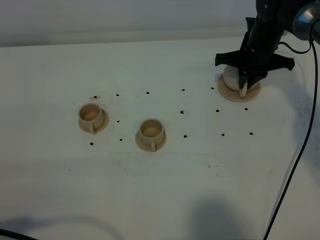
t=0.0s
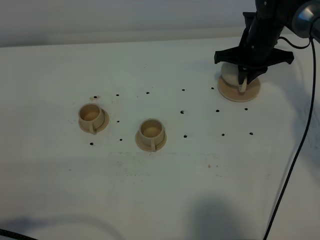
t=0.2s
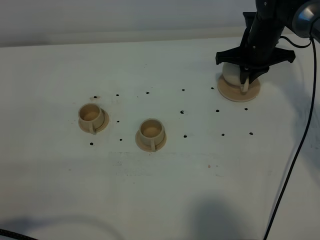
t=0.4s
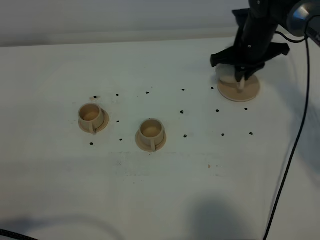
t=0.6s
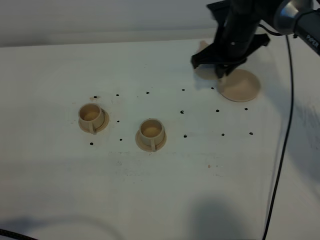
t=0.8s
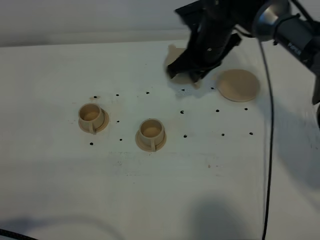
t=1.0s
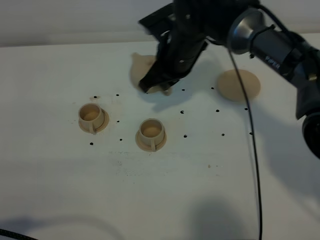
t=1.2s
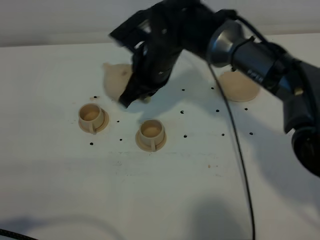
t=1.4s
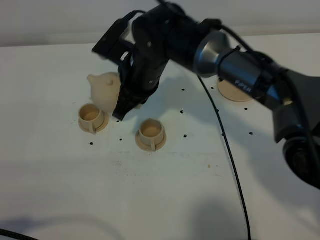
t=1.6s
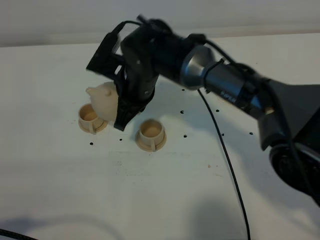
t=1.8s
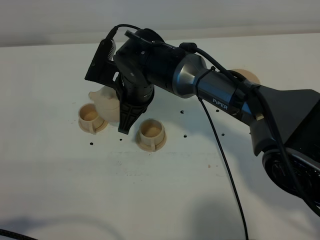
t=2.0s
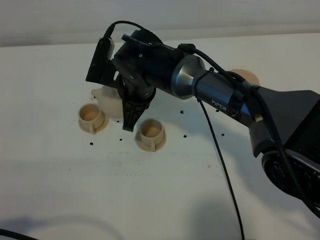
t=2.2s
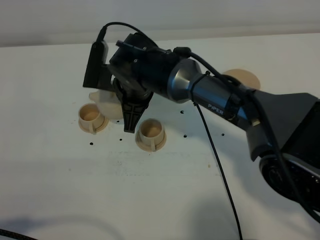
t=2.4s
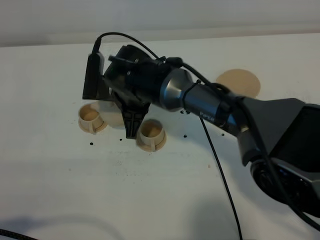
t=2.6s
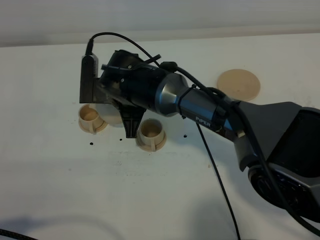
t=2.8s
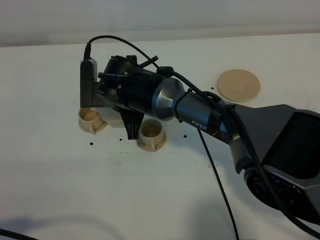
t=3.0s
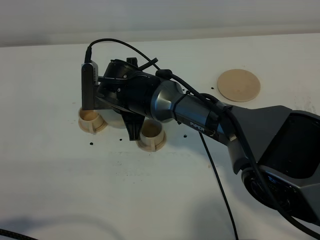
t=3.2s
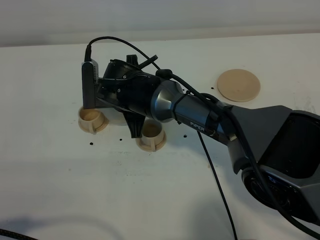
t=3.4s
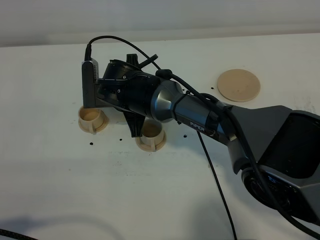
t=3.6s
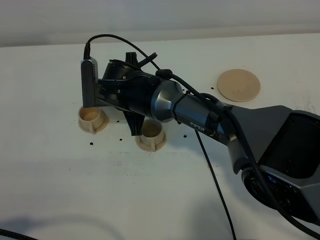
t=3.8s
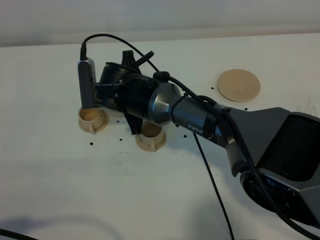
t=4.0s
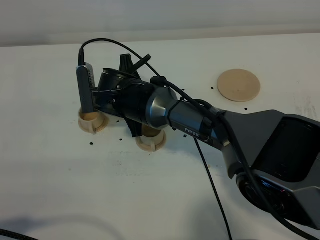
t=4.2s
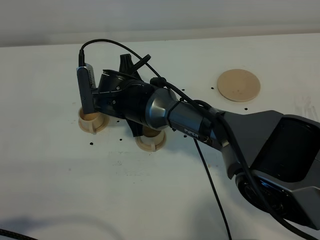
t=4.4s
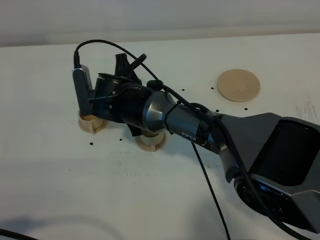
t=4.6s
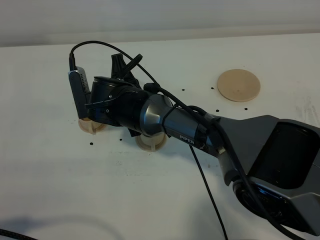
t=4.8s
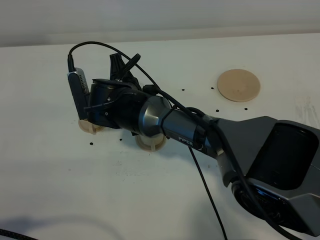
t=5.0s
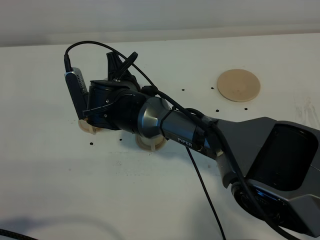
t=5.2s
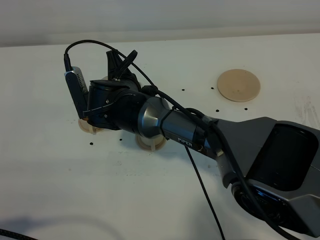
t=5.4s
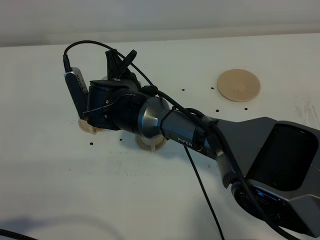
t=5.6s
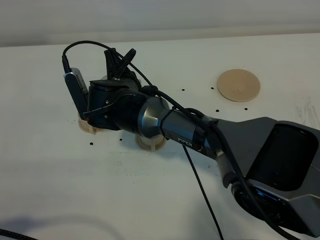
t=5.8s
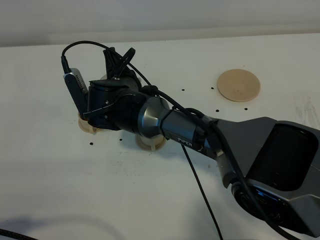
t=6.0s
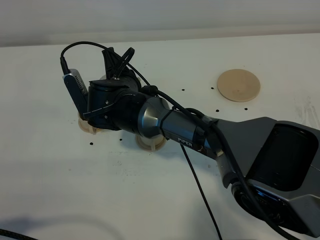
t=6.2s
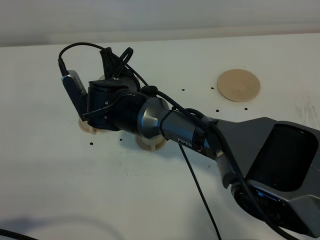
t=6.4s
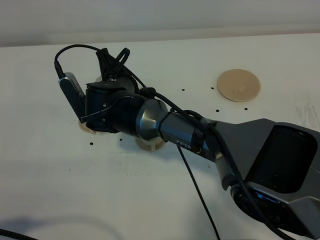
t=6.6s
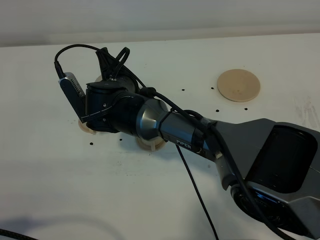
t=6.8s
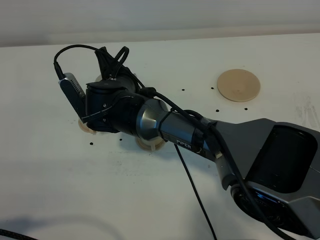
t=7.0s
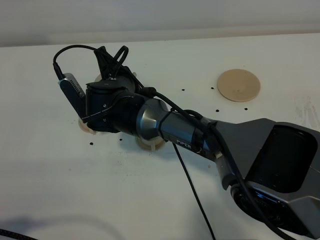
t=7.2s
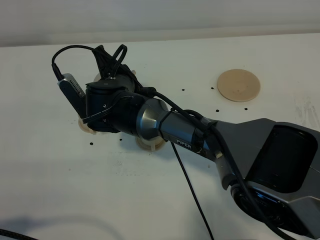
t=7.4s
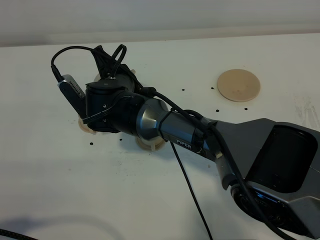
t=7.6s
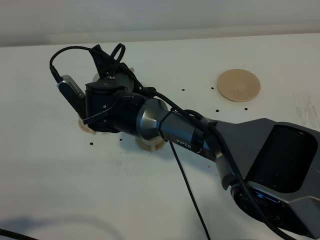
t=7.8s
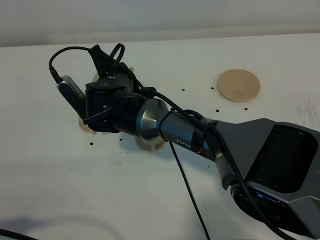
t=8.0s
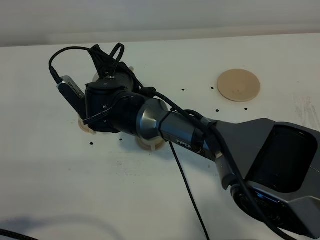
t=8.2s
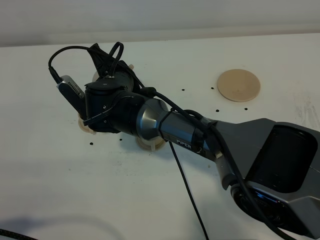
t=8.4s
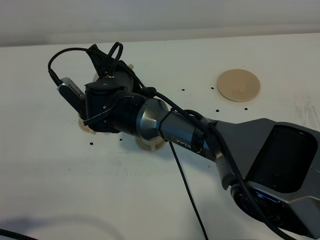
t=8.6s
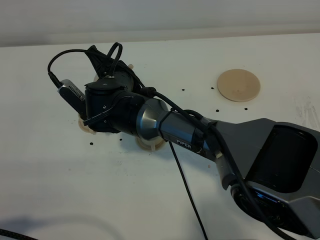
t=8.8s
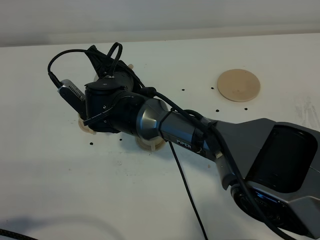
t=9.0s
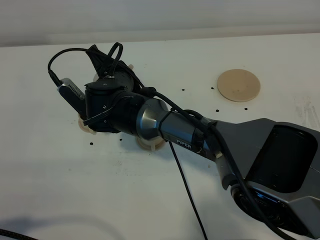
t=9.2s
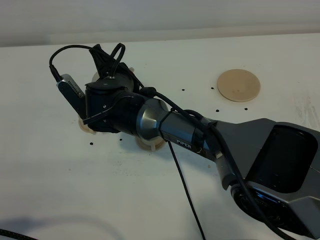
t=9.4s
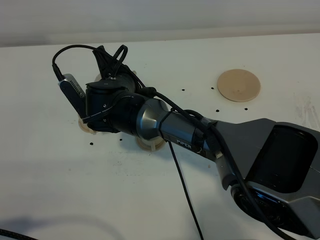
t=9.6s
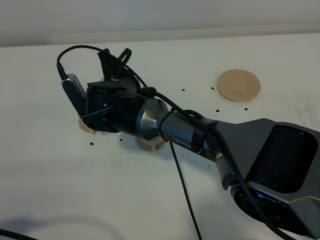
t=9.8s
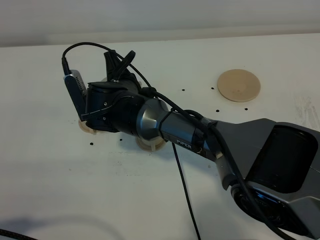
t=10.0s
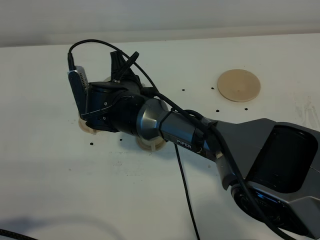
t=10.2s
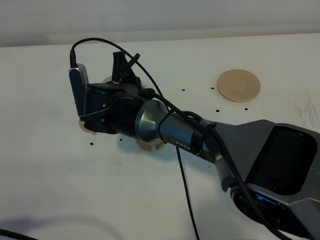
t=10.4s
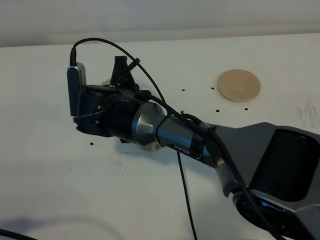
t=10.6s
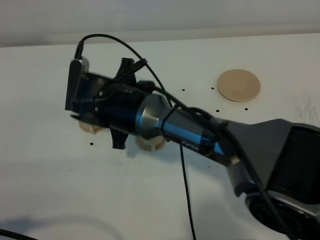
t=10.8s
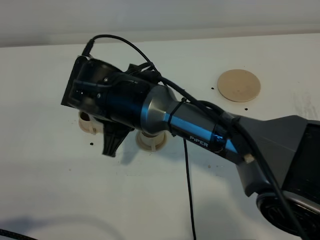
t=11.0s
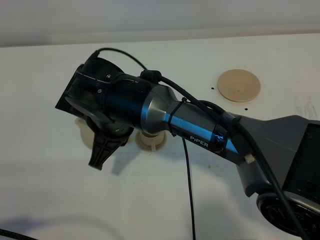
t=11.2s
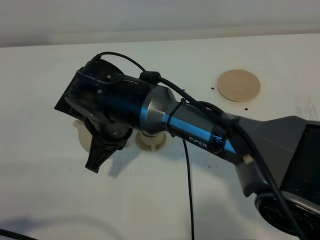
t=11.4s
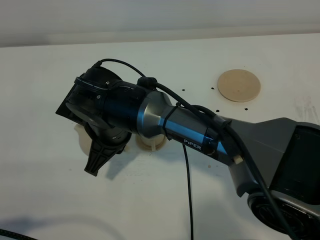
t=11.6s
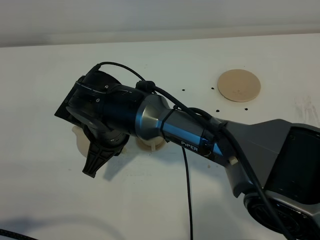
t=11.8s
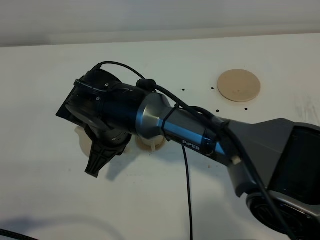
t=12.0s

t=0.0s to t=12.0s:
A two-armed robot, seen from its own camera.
Task of the whole recording: grasp the brown teapot and pour the tea into the two brown teacups one by one, put the brown teapot back in its original place.
Step, t=0.6s to t=10.0s: Pour tea into the teacup with the right gripper.
t=0.0s to t=1.6s: The right gripper is displaced to the left and backward by some 25 cm.
t=1.6s to t=3.0s: The right gripper moves downward, roughly 5 cm.
t=3.0s to t=4.4s: There are only small adjustments of the grippers.
t=4.4s to t=6.0s: There are only small adjustments of the grippers.
t=6.0s to t=7.6s: The grippers make only small movements.
t=7.6s to t=9.0s: The grippers make only small movements.
t=10.4s to t=12.0s: The right gripper heads backward, covering roughly 5 cm.

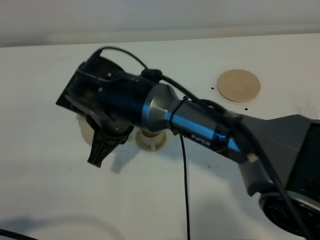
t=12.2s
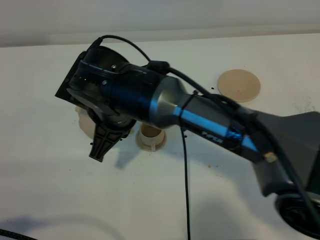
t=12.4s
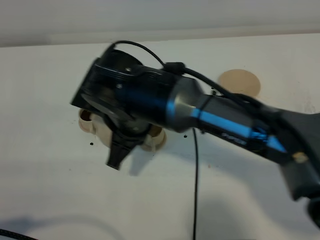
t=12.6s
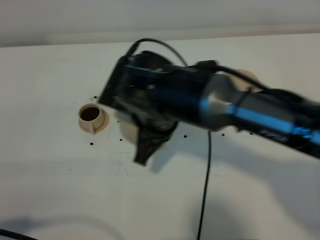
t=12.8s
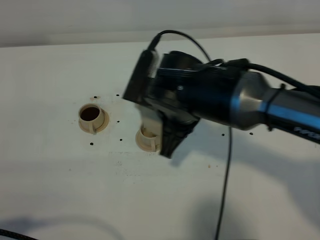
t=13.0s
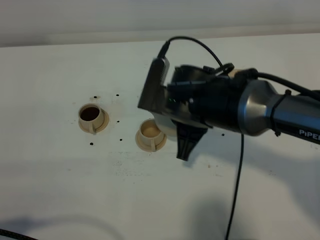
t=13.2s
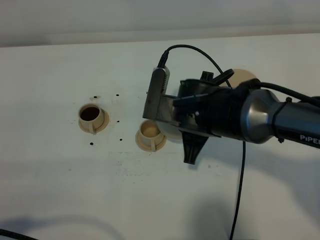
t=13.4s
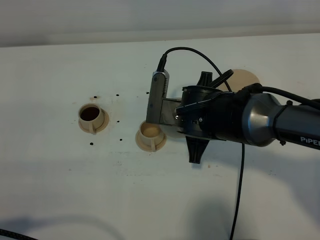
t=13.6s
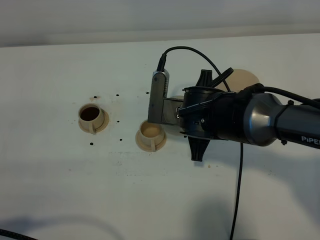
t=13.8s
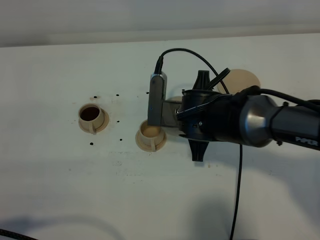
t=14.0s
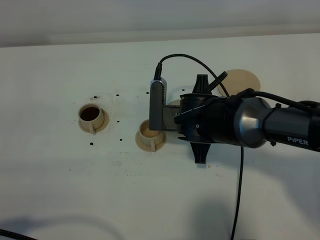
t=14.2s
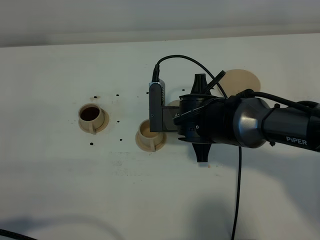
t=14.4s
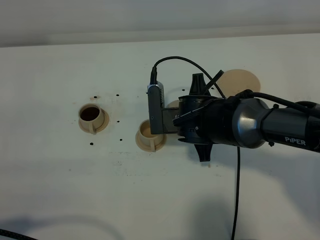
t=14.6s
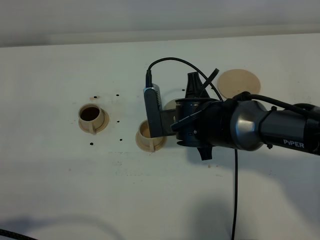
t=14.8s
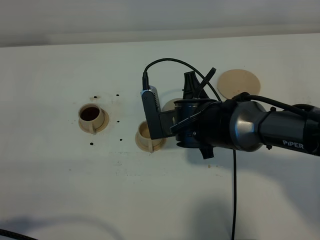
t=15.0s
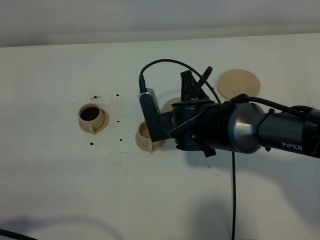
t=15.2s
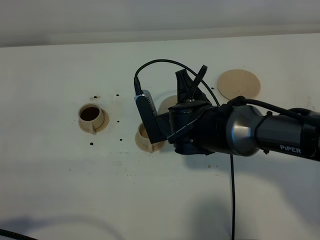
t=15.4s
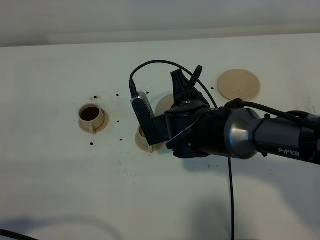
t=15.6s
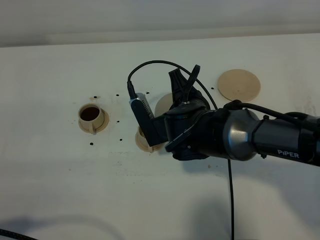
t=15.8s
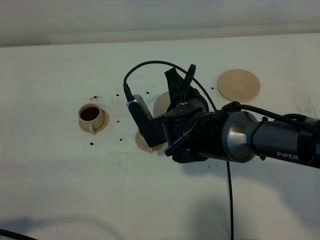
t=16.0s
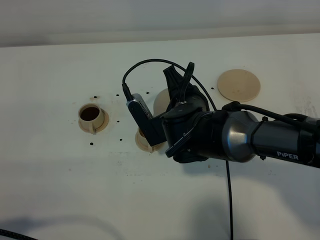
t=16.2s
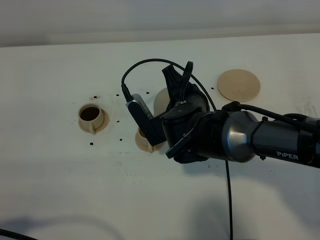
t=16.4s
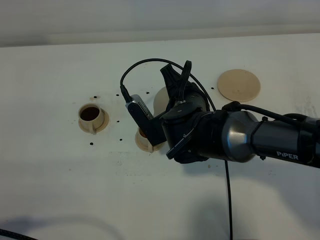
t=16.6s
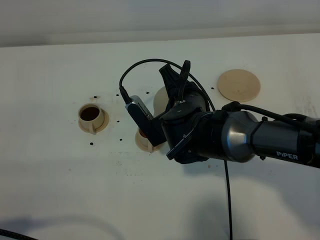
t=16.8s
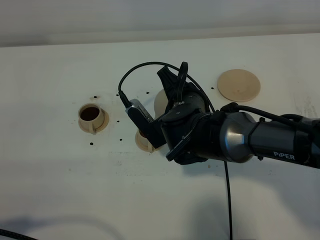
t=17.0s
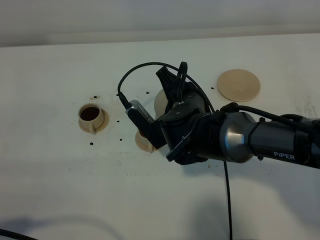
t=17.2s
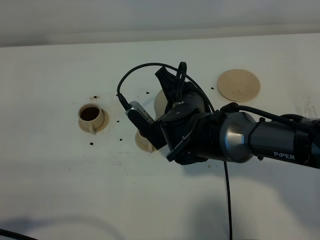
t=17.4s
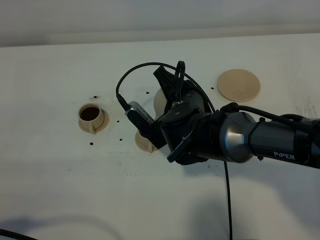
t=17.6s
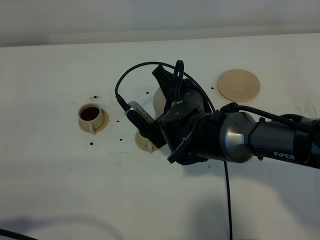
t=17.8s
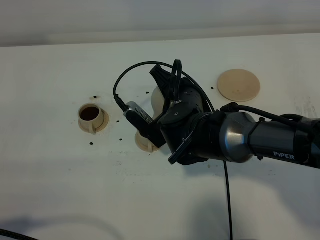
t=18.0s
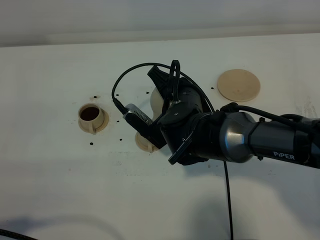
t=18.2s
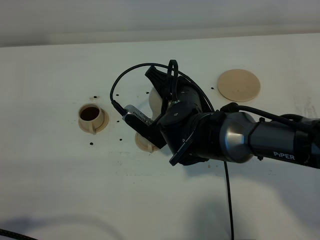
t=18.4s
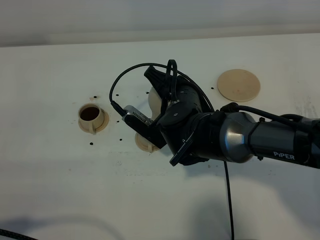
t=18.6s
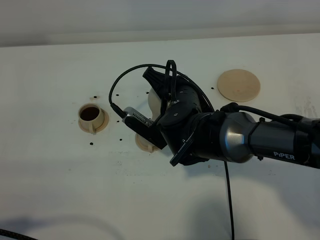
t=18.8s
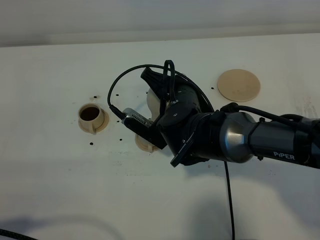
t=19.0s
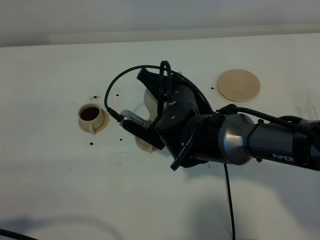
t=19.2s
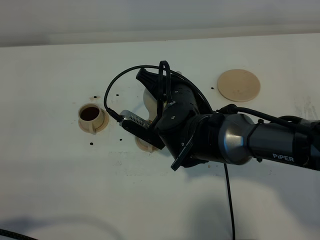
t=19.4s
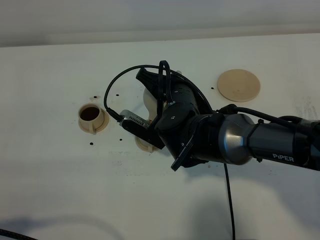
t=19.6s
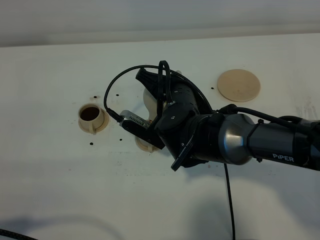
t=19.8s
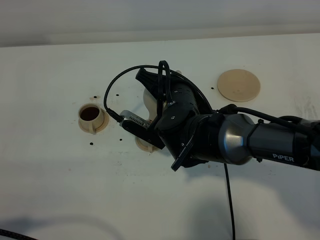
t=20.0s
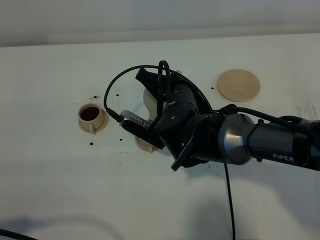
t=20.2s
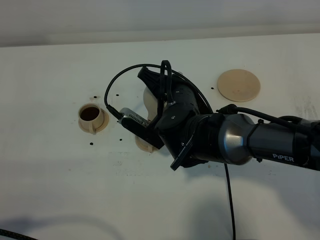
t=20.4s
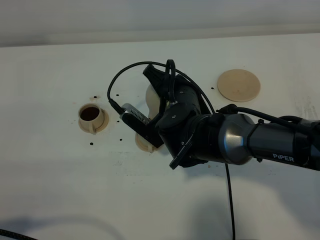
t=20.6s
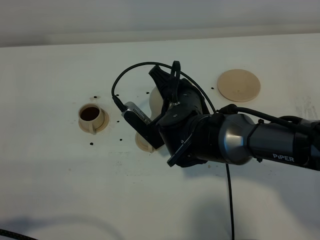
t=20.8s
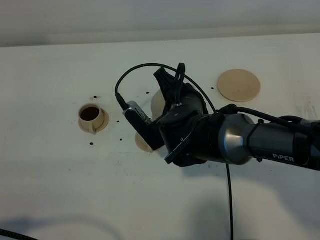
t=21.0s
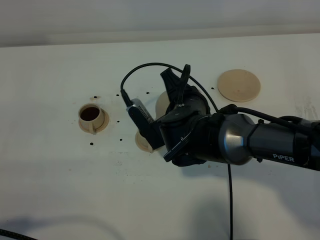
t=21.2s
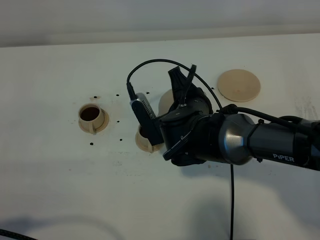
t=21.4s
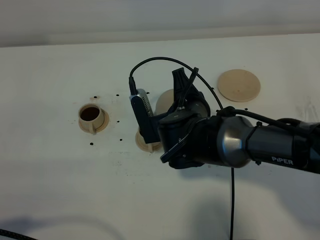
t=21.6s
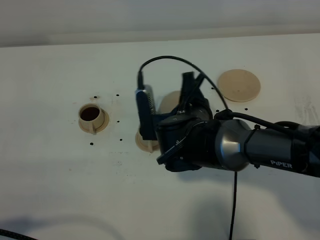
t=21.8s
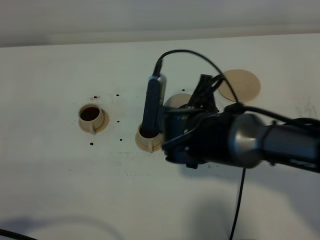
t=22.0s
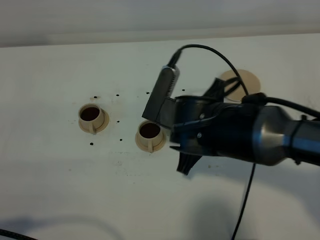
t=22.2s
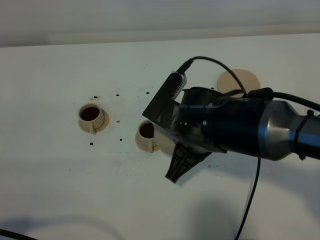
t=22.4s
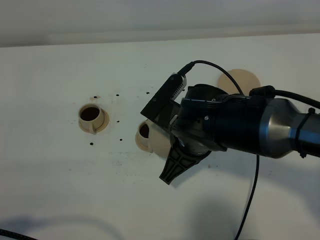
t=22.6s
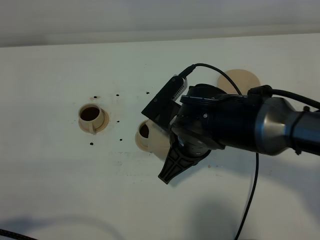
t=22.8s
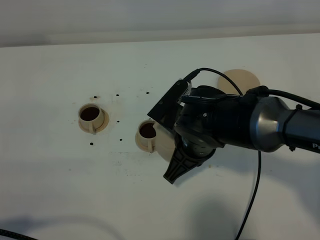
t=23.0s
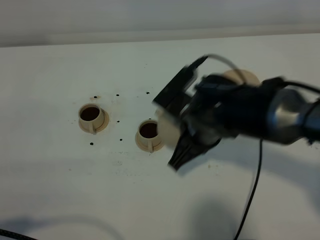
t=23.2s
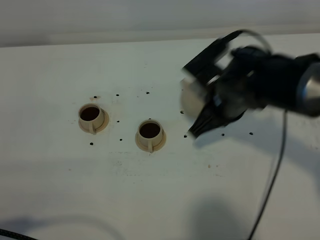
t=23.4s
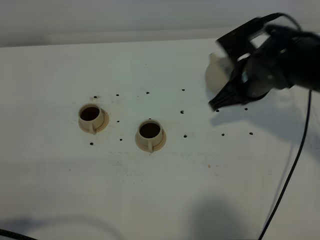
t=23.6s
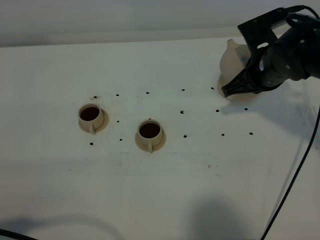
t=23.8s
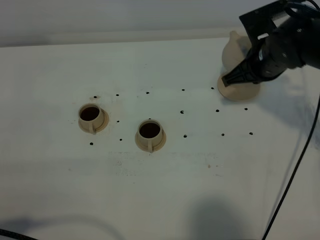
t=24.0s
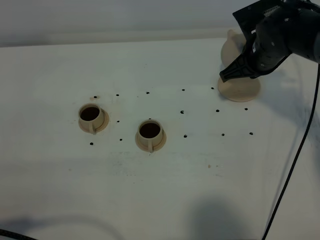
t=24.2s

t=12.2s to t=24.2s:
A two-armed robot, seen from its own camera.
Task of the whole recording: grasp the brown teapot and pour the tea into the two brown teacups one by one, put the brown teapot back in its original place.
Step, t=12.2s to t=21.6s: Pour tea into the teacup with the right gripper.
t=12.2s to t=13.8s: The right gripper shifts some 15 cm to the right.
t=15.2s to t=16.6s: There are only small adjustments of the grippers.
t=16.6s to t=18.2s: There are only small adjustments of the grippers.
t=18.2s to t=19.8s: The grippers stay close to where they were, moving slightly.
t=21.2s to t=22.6s: The right gripper travels backward by approximately 5 cm.
t=22.6s to t=24.2s: The right gripper goes roughly 20 cm forward and to the right.
